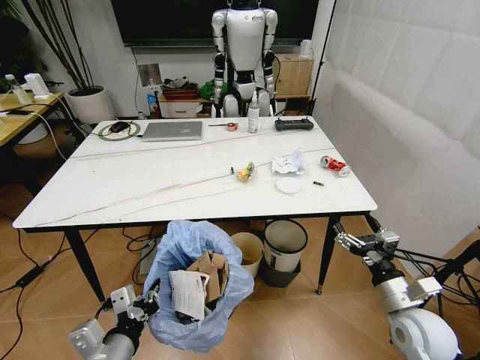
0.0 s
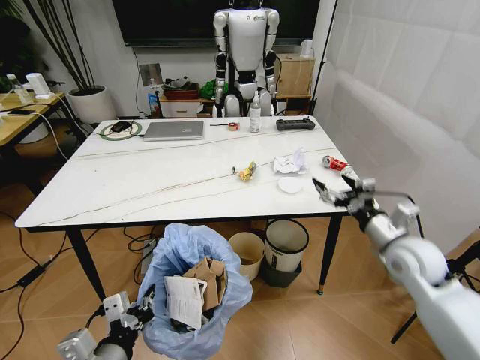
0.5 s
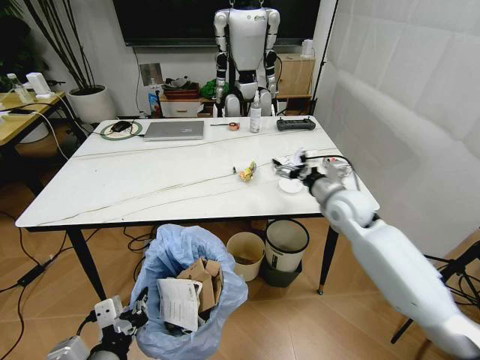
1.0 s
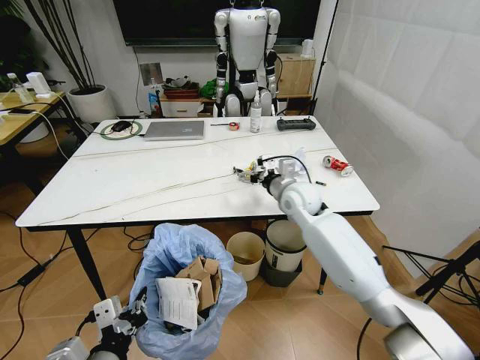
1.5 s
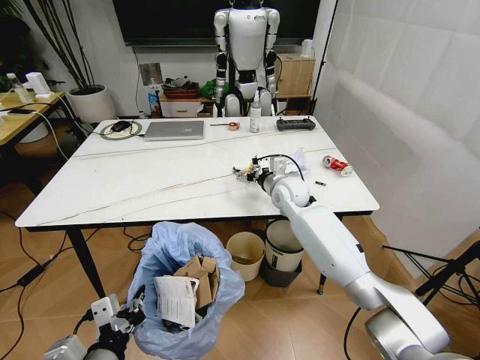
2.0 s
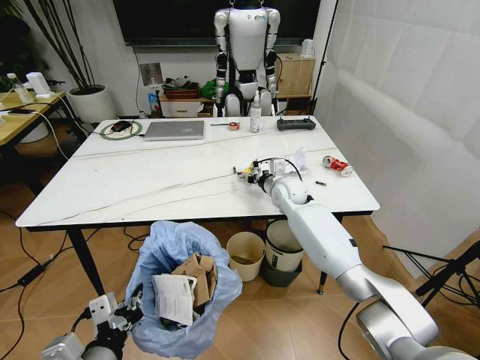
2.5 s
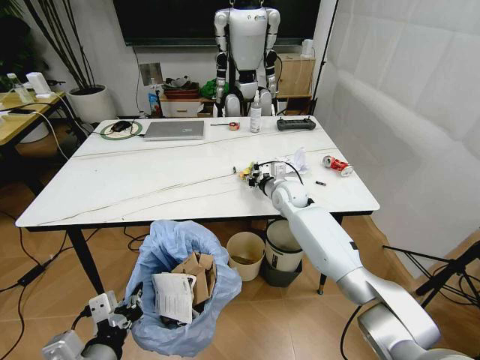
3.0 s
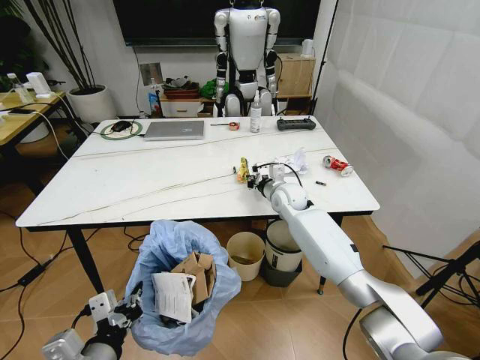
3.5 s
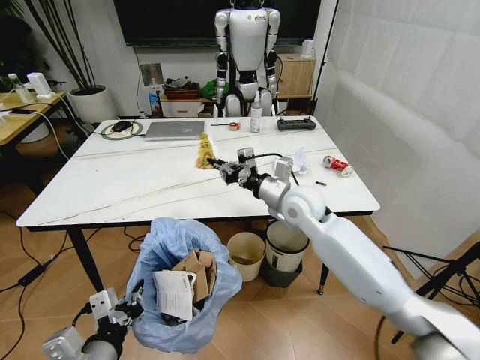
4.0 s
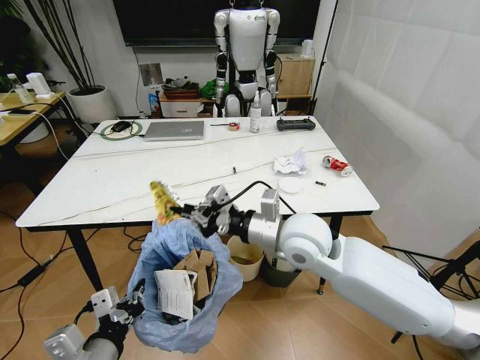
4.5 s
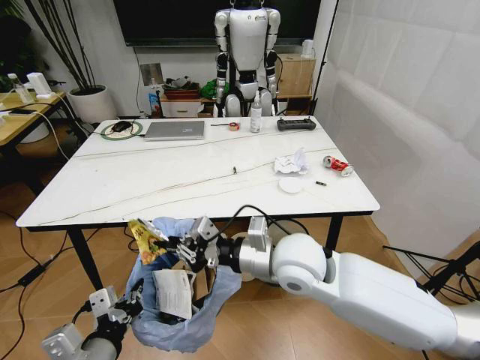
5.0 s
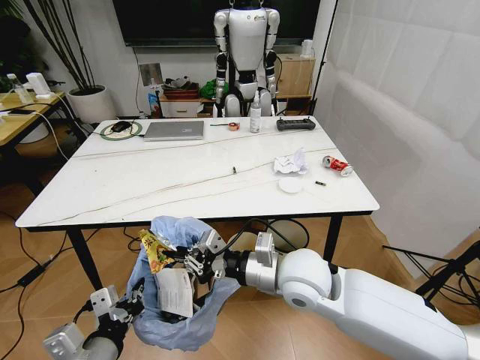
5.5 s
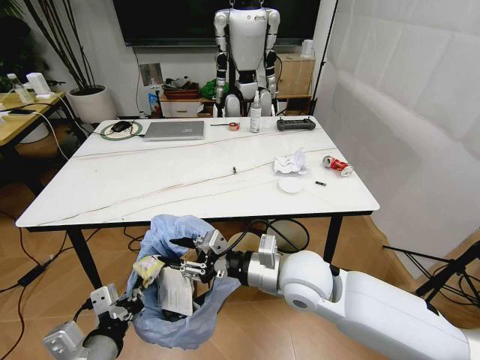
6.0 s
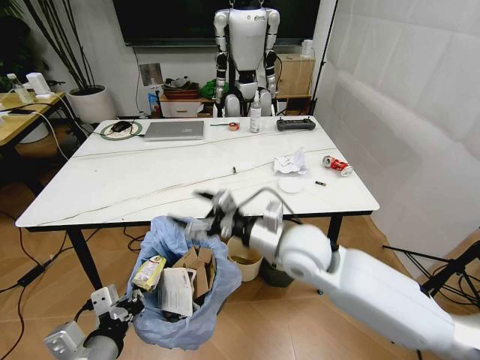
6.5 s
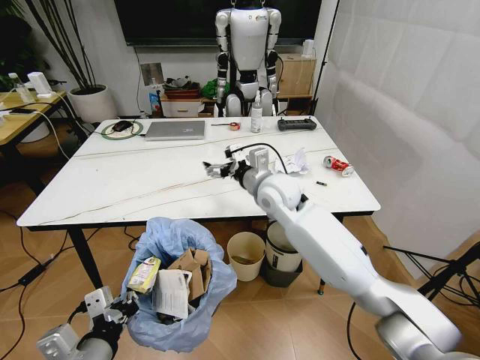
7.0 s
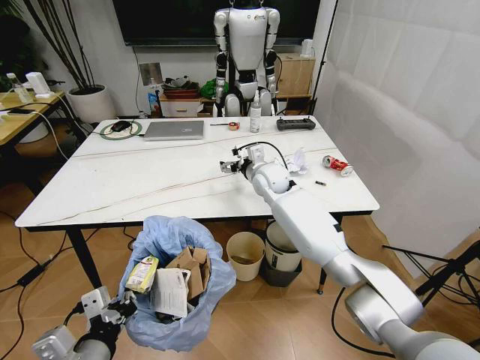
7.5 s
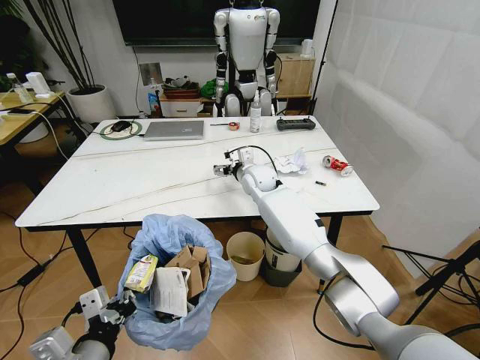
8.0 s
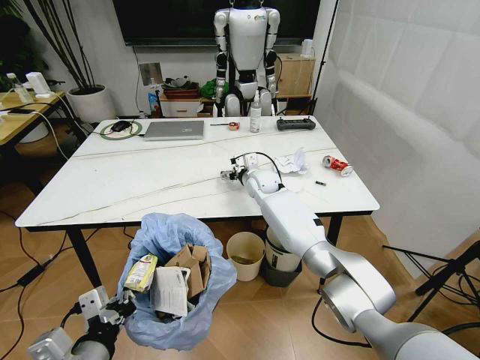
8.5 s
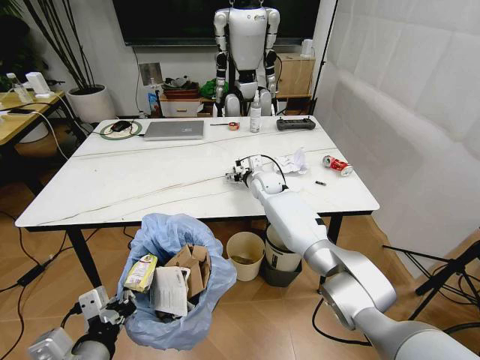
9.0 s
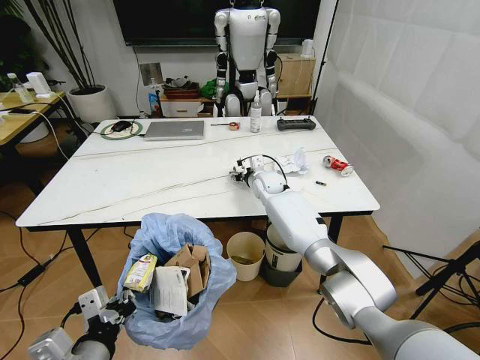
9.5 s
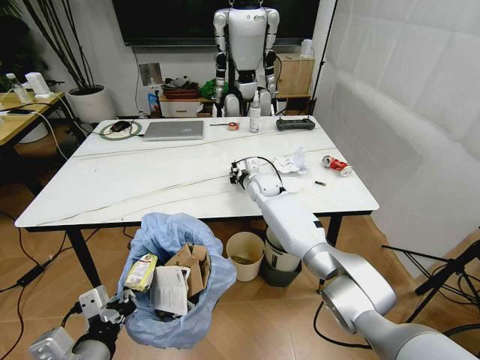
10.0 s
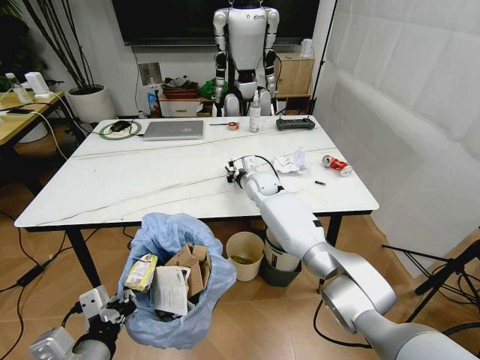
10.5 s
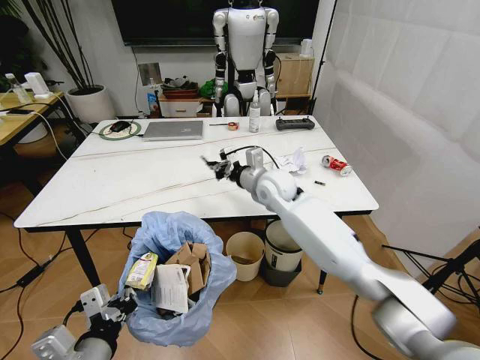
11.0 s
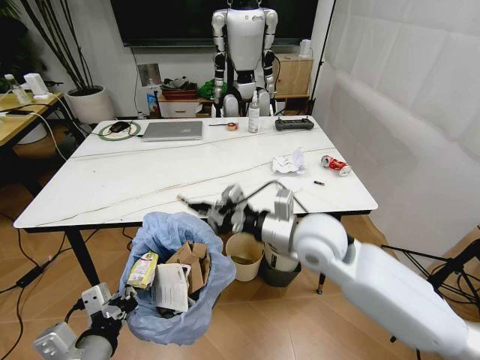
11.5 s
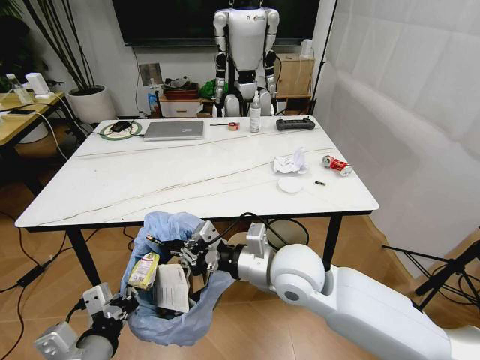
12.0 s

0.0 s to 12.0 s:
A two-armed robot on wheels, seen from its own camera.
Task of the whole recording: Pick up the trash bin and place the trash from the table into it.
0.0 to 2.0 s: The right gripper is displaced forward and to the left by about 40 cm.
2.0 to 4.0 s: The right gripper is displaced backward by approximately 10 cm, and closes up.
4.0 to 6.0 s: The right gripper heads backward, covering about 15 cm, and opens its fingers.
6.0 to 8.0 s: The right gripper travels forward by some 30 cm, and opens its fingers.
8.0 to 10.0 s: The right gripper changes place by about 5 cm, and closes up.
10.0 to 12.0 s: The right gripper goes roughly 30 cm backward.

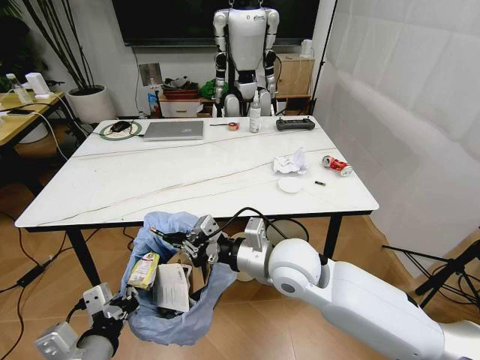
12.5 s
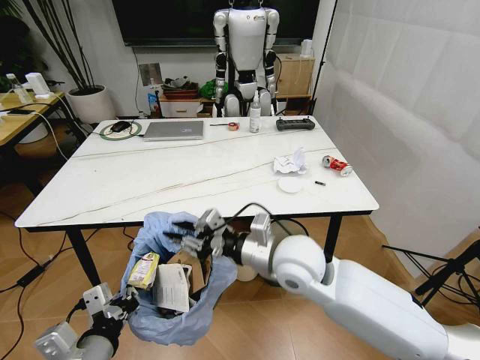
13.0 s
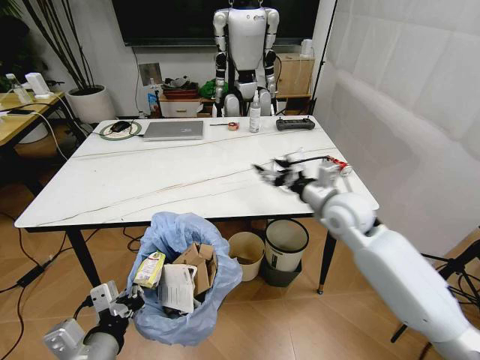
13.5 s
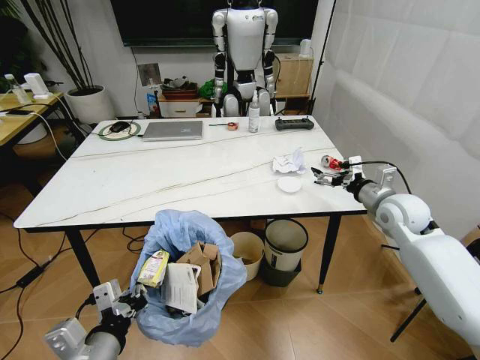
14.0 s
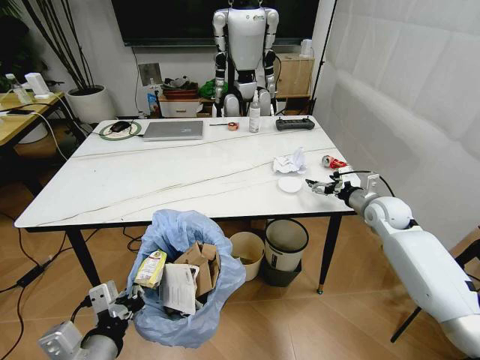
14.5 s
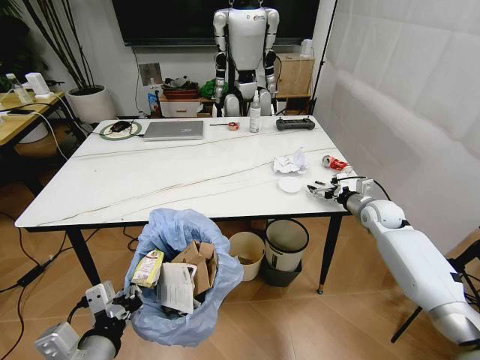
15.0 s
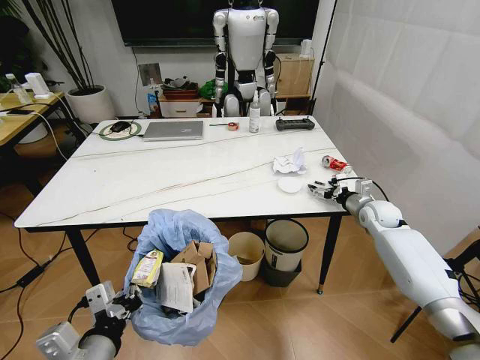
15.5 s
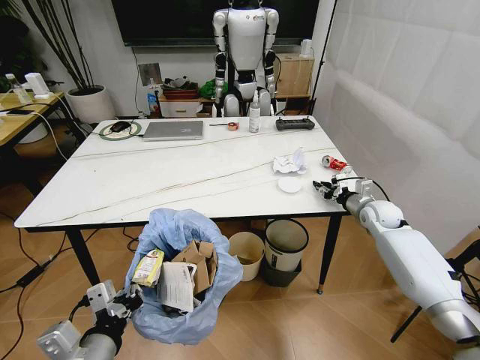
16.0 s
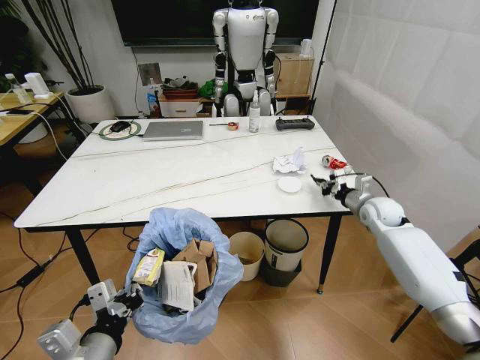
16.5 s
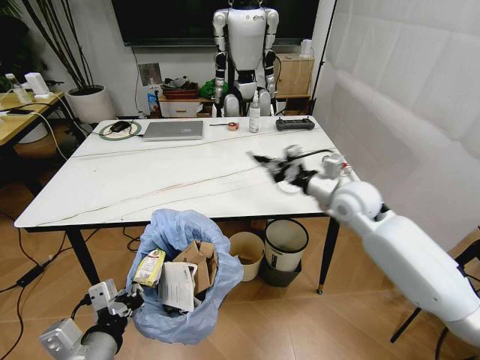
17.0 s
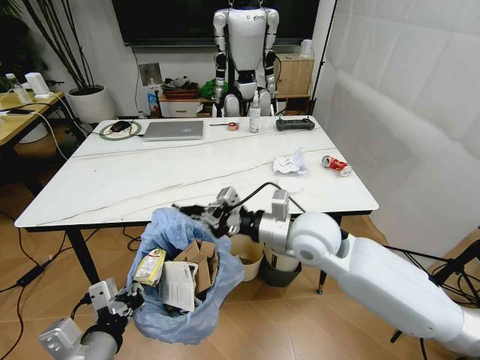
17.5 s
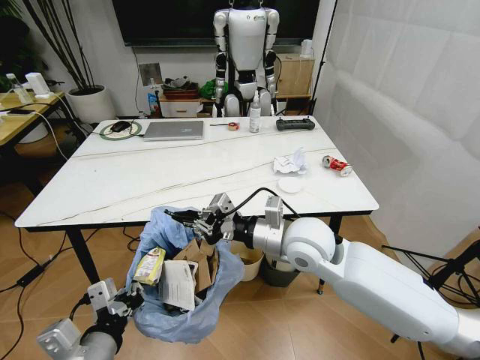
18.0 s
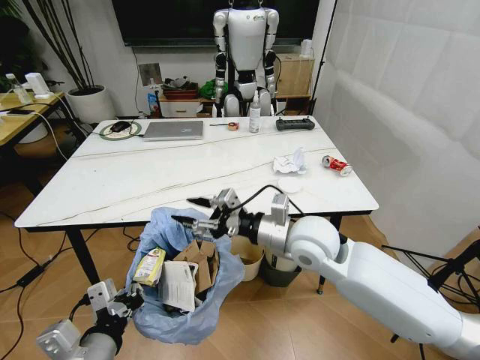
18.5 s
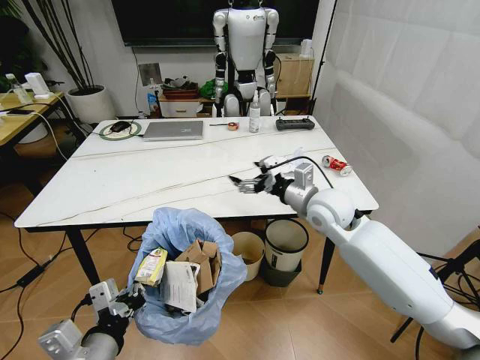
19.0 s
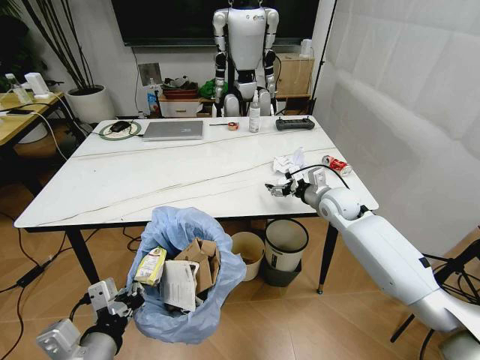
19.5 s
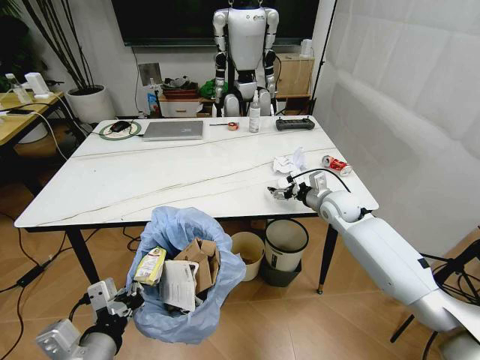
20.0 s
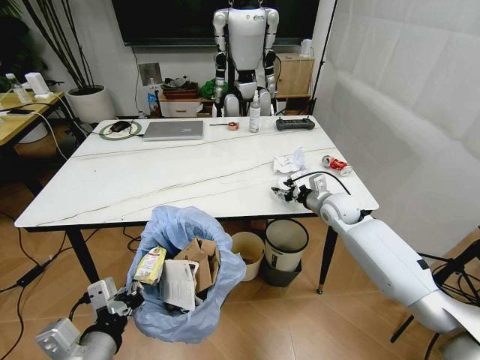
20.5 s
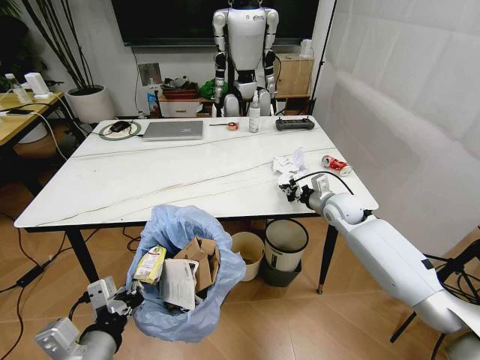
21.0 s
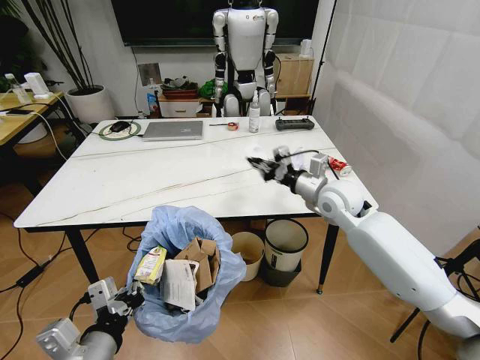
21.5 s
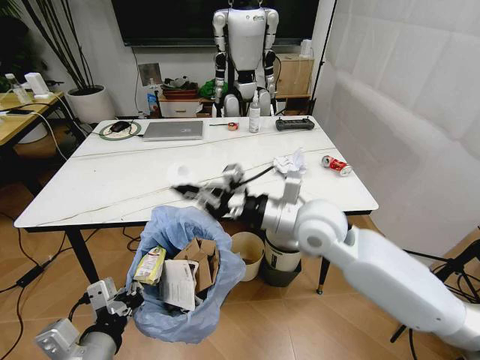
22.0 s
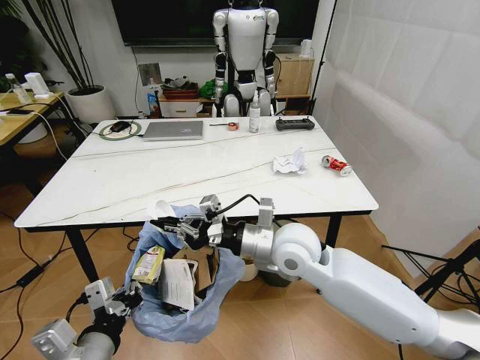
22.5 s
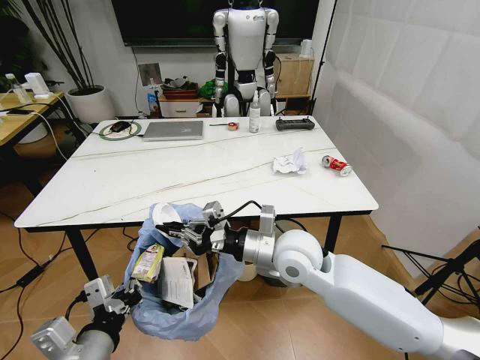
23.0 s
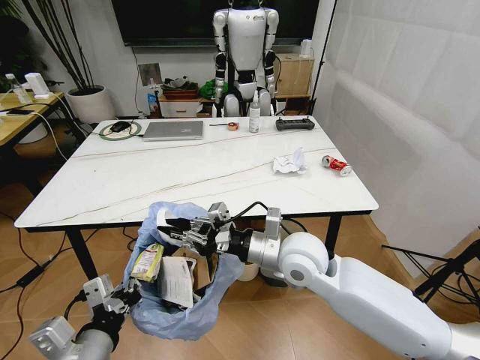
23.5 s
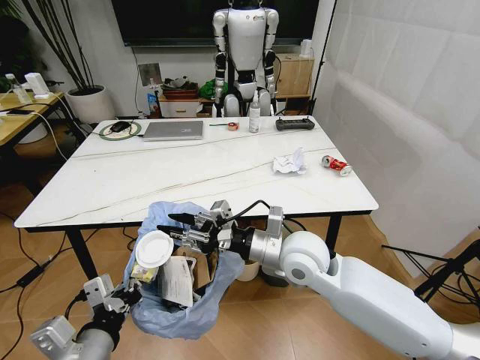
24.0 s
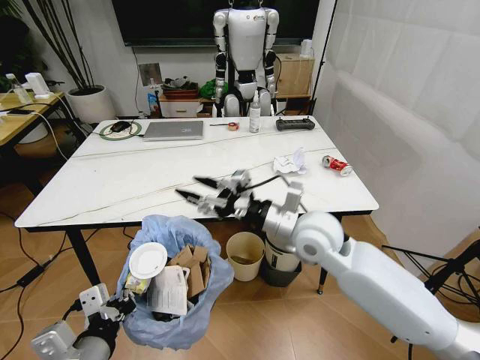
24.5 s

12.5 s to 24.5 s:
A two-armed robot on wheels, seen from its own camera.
Task of the whole recording: Pick up the trash bin and place the trash from the table into it.
12.5 to 14.5 s: The right gripper shifts roughly 35 cm to the right and forward, and opens its fingers.
14.5 to 16.5 s: The right gripper closes its fingers.
16.5 to 18.5 s: The right gripper goes roughly 30 cm to the left, backward and upward, and opens.
18.5 to 20.5 s: The right gripper heads forward, to the right and downward, covering some 25 cm, and opens, then closes once more.
20.5 to 22.5 s: The right gripper goes approximately 25 cm to the left, backward and upward, and closes its fingers.
22.5 to 24.5 s: The right gripper moves roughly 5 cm, and opens its fingers.

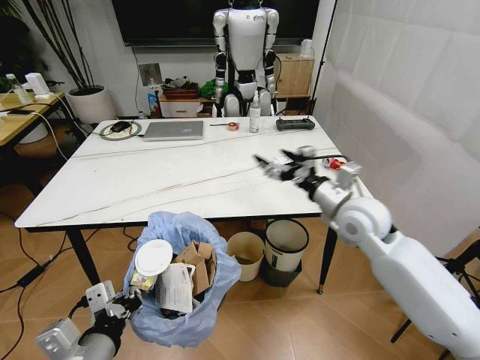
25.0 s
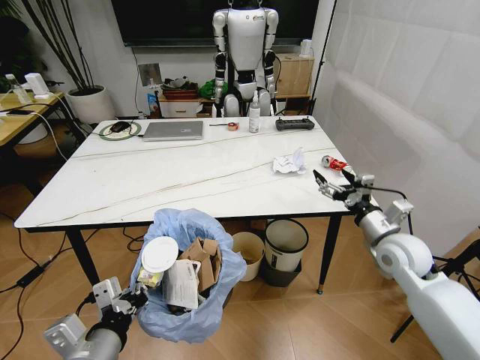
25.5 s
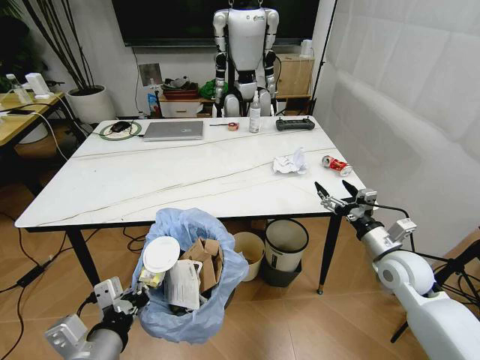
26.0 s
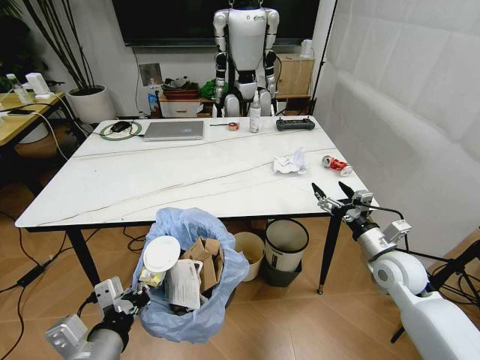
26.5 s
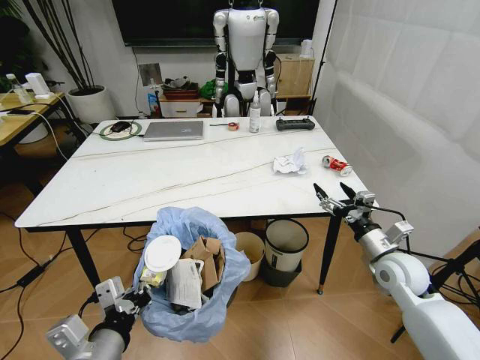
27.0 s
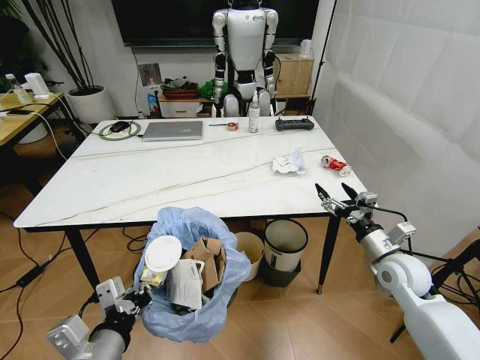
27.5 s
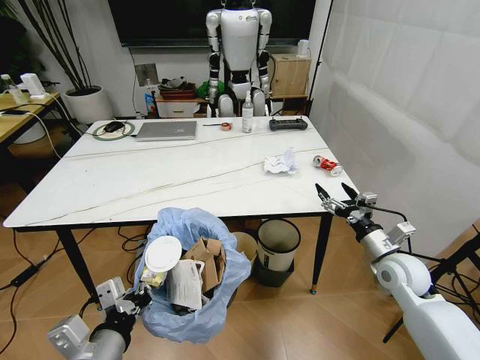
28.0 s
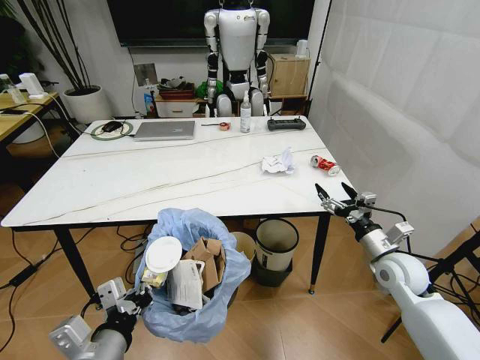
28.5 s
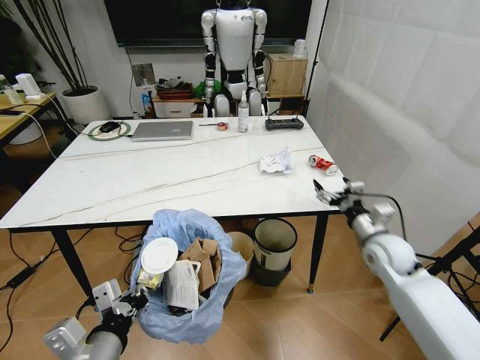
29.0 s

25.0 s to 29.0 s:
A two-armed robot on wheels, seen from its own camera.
Task of the whole recording: Pick up the trash bin and place the trash from the table into it.
25.0 to 27.0 s: The right gripper shifts about 20 cm downward, to the right and backward.
